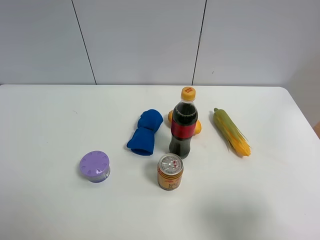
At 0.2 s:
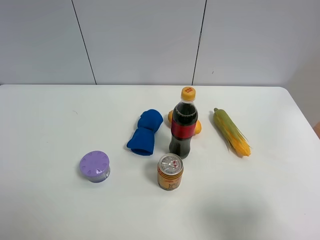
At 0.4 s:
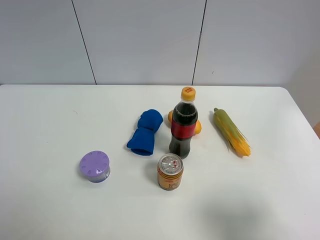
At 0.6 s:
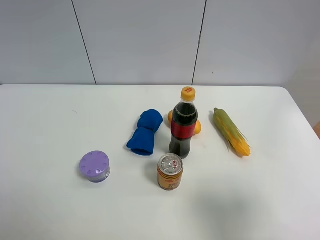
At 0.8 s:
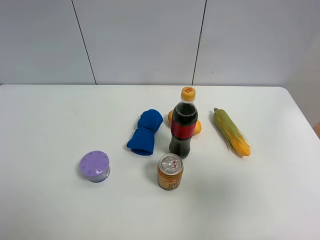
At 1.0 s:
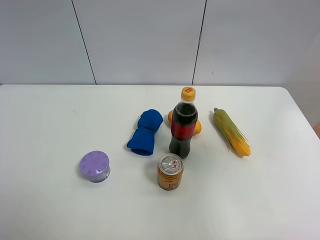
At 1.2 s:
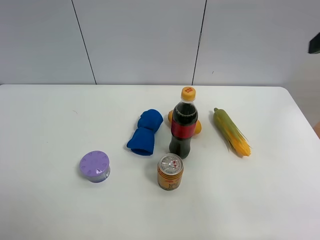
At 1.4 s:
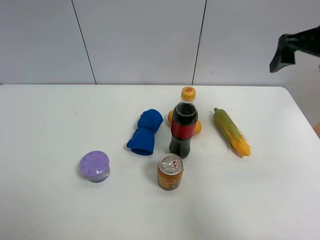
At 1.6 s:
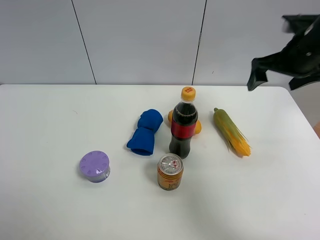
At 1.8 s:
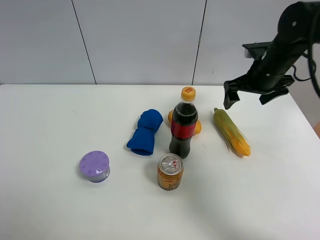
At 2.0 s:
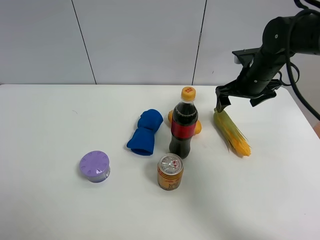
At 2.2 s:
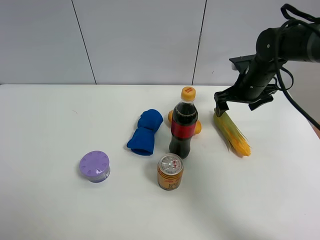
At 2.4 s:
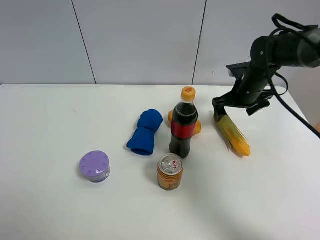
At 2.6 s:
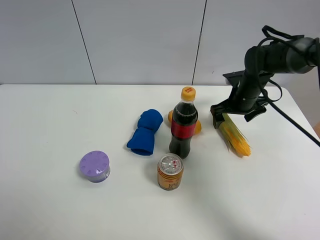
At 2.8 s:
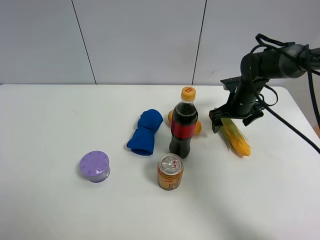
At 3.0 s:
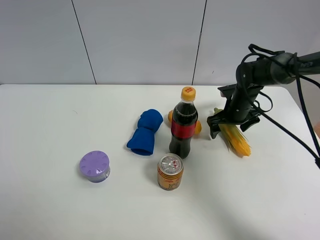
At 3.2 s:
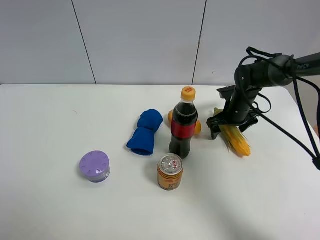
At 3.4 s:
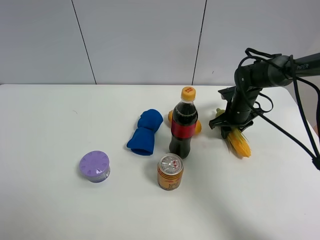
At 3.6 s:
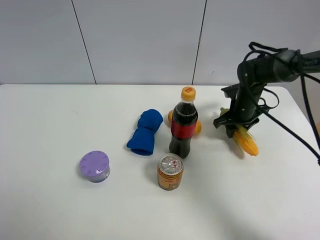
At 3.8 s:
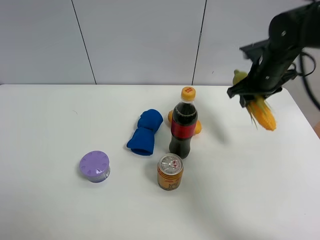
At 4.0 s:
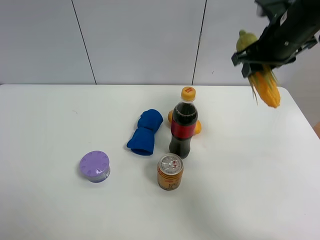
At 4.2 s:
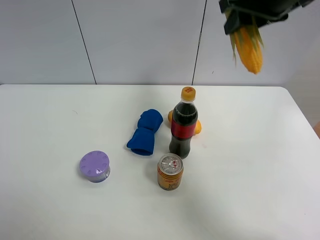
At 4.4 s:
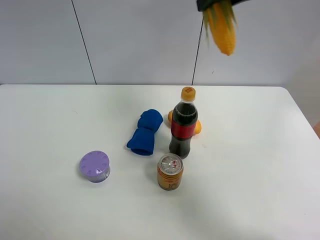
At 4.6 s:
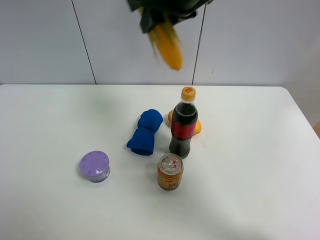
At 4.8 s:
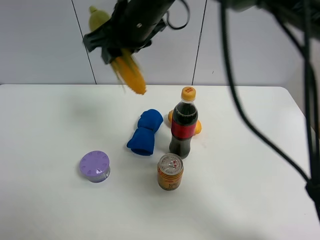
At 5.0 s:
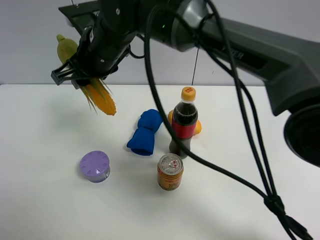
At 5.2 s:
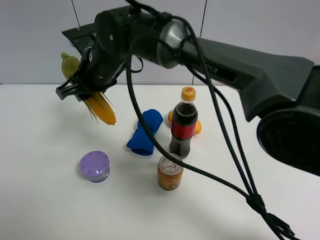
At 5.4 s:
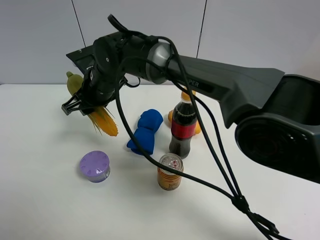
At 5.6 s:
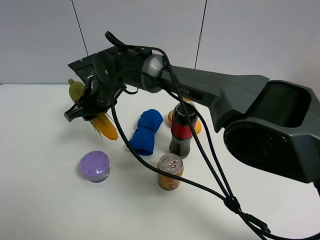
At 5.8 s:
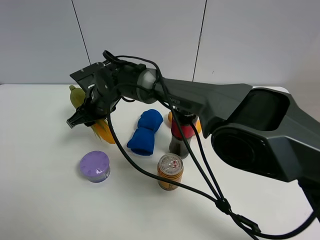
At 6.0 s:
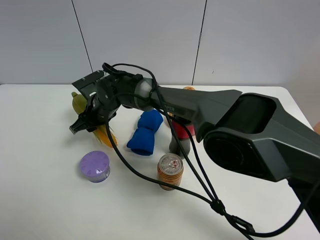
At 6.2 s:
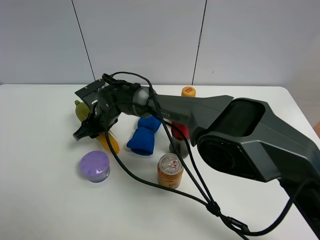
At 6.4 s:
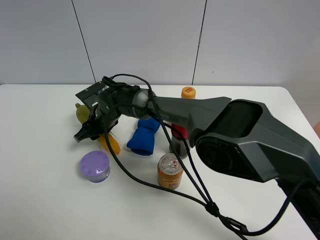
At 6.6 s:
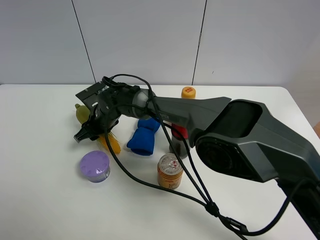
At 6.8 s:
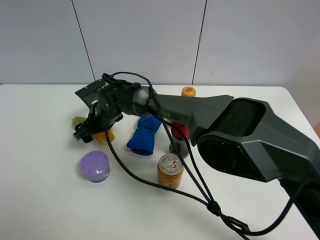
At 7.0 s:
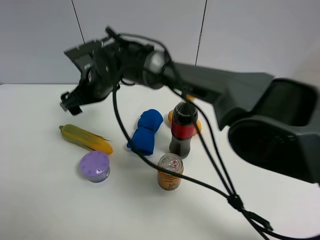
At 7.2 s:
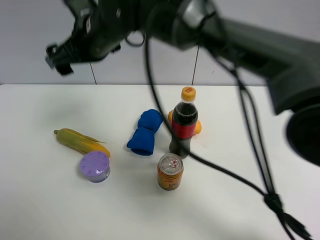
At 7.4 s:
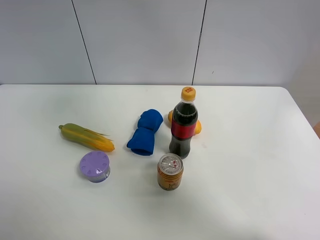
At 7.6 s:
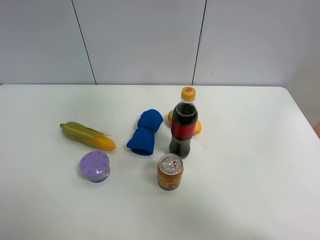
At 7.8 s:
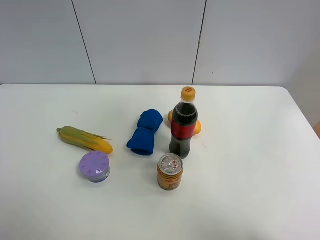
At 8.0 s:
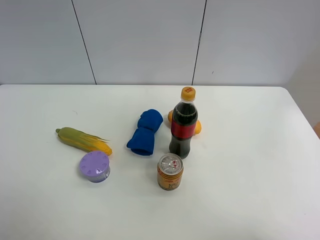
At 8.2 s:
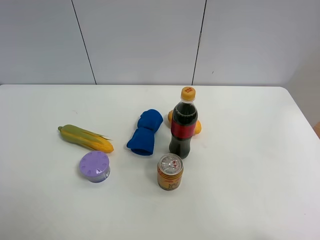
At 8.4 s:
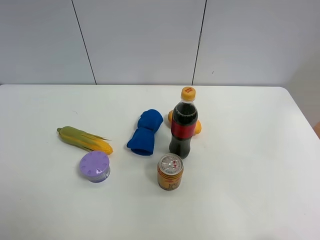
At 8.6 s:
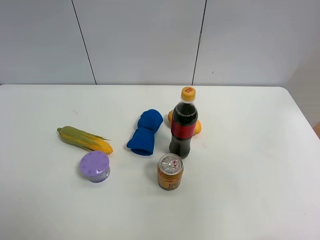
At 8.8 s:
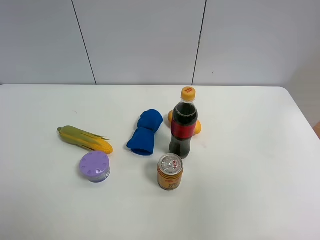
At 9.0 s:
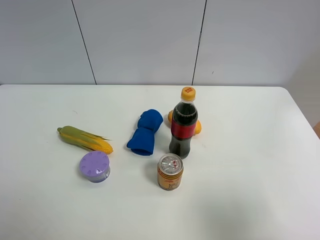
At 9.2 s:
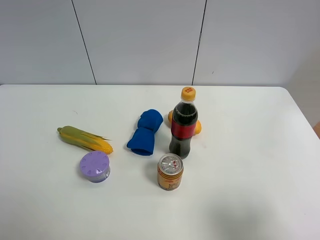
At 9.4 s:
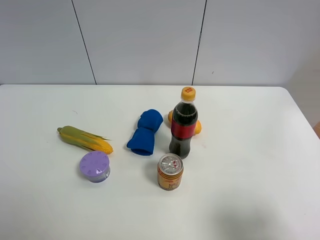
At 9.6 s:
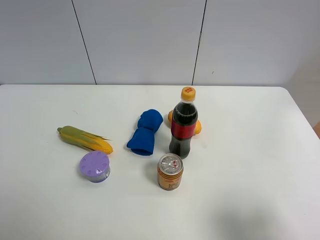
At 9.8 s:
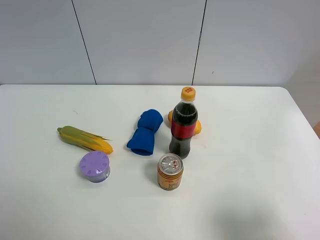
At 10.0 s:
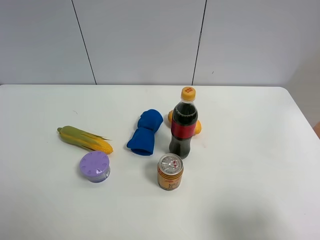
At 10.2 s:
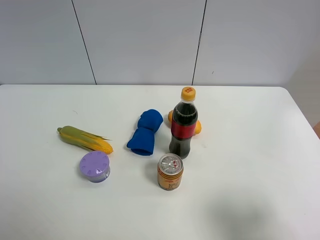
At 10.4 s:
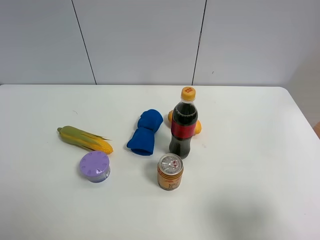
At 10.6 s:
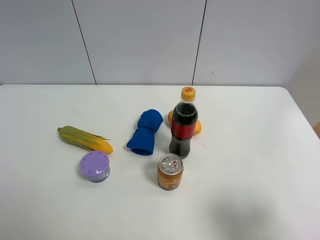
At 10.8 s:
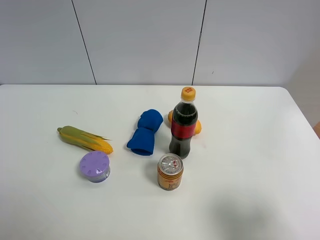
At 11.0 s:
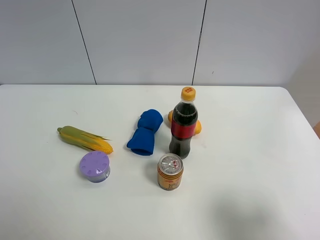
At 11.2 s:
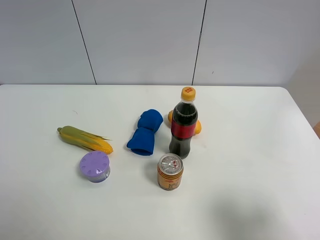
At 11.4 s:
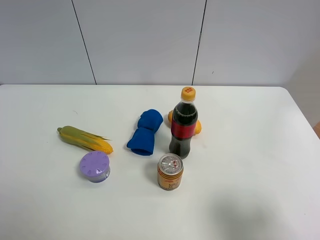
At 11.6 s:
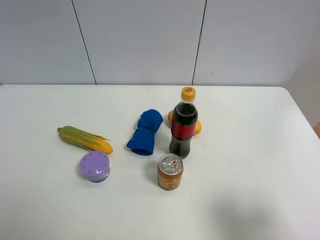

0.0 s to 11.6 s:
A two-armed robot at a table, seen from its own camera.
Task of the whole recording: the gripper move the object.
Step, 0.0 to 3.2 s: Grasp the corn with the right gripper.
Step, 3.4 to 6.8 s: Place the corn on the table with the right gripper.
0.0 to 1.4 s: The right gripper shifts approximately 30 cm forward.
1.4 to 2.8 s: The right gripper travels downward and forward by some 25 cm.
2.8 to 4.4 s: The right gripper heads upward, covering approximately 30 cm, and closes its fingers.
4.4 to 5.8 s: The right gripper shifts approximately 40 cm downward and to the left.
5.8 to 7.2 s: The right gripper moves upward, some 20 cm, and opens.
7.2 to 8.8 s: The right gripper heads to the right and backward, covering some 50 cm.
8.8 to 10.2 s: The right gripper moves downward, some 15 cm.

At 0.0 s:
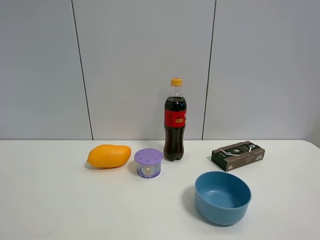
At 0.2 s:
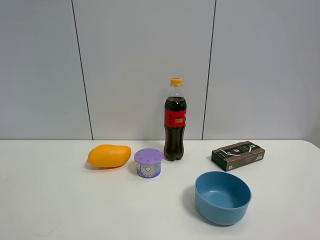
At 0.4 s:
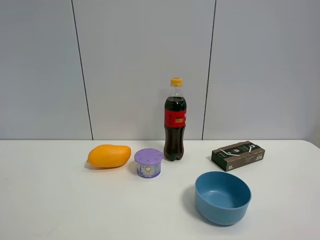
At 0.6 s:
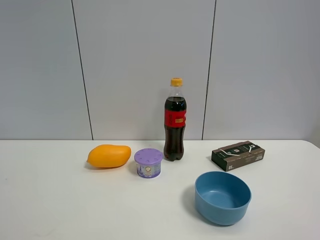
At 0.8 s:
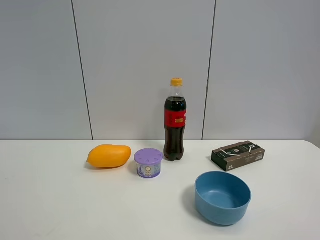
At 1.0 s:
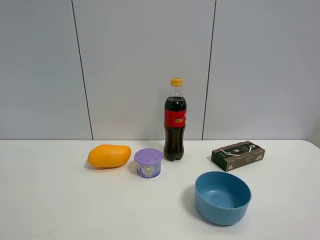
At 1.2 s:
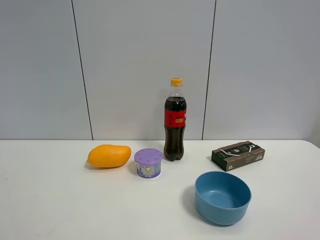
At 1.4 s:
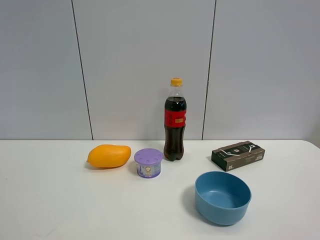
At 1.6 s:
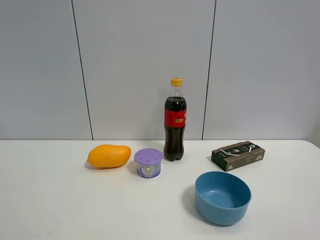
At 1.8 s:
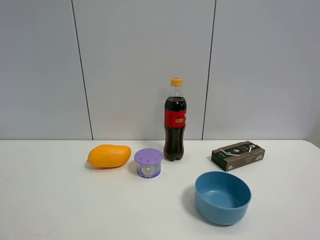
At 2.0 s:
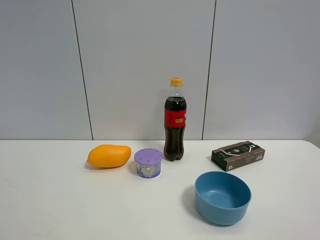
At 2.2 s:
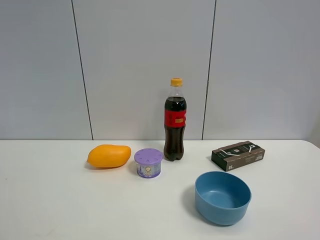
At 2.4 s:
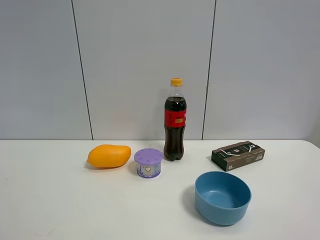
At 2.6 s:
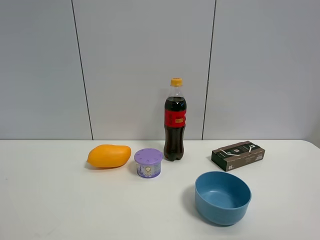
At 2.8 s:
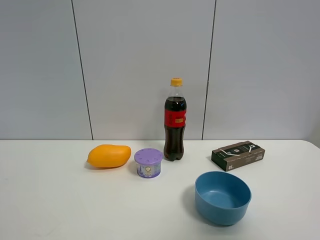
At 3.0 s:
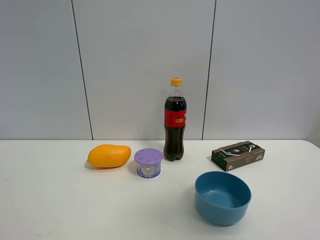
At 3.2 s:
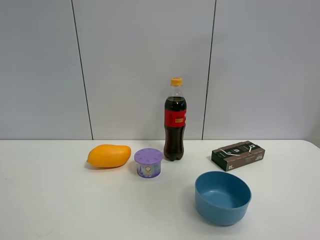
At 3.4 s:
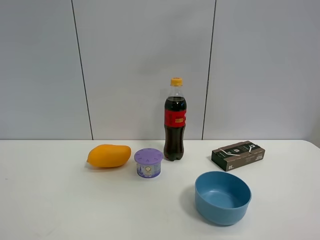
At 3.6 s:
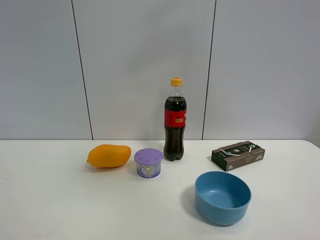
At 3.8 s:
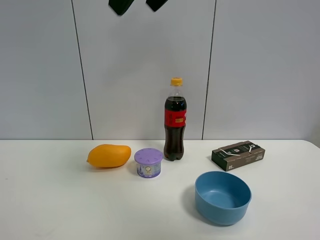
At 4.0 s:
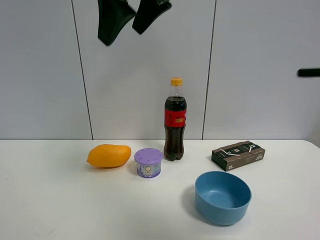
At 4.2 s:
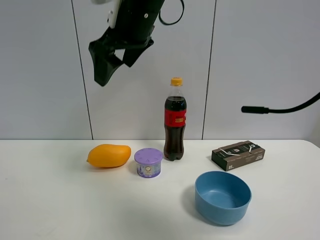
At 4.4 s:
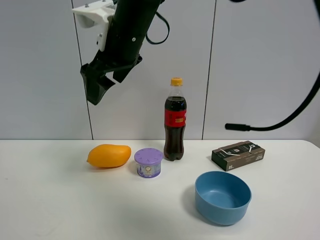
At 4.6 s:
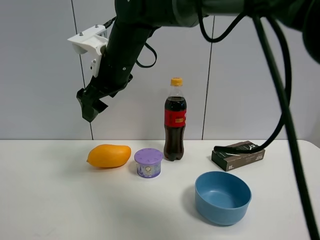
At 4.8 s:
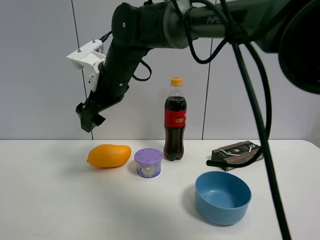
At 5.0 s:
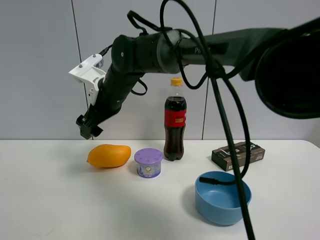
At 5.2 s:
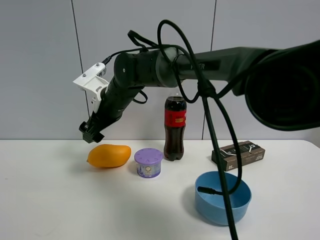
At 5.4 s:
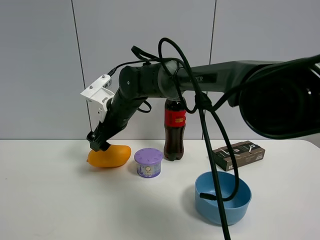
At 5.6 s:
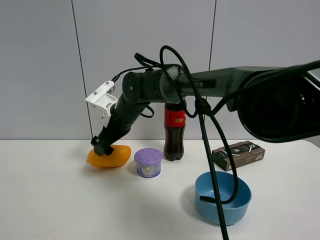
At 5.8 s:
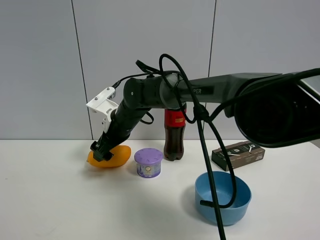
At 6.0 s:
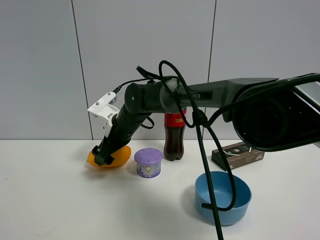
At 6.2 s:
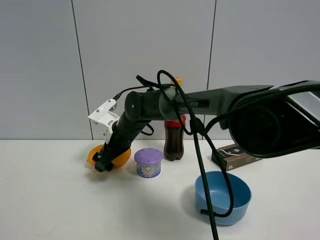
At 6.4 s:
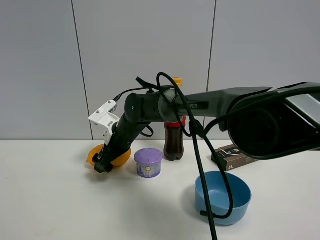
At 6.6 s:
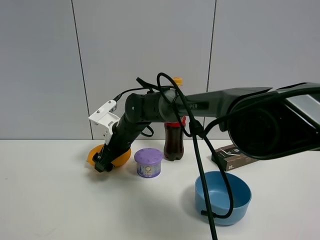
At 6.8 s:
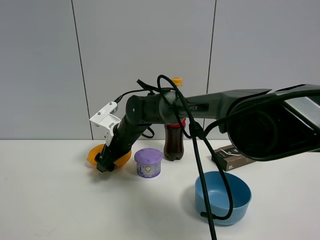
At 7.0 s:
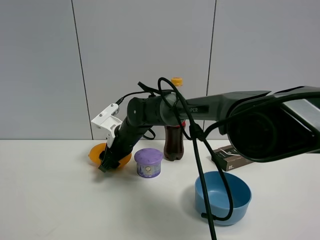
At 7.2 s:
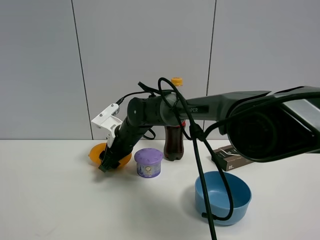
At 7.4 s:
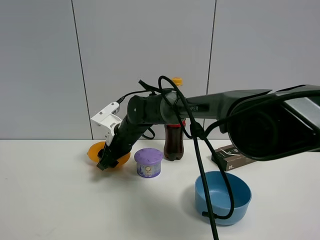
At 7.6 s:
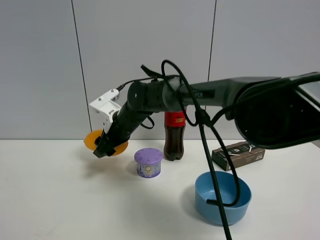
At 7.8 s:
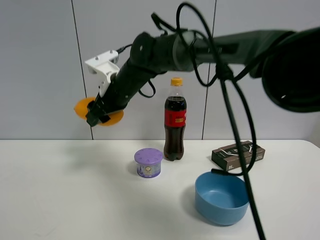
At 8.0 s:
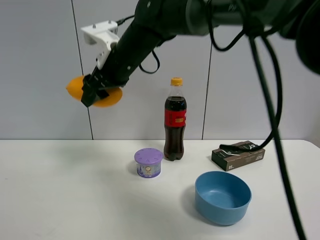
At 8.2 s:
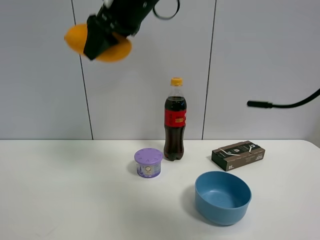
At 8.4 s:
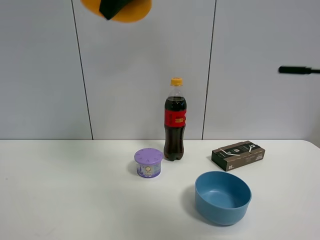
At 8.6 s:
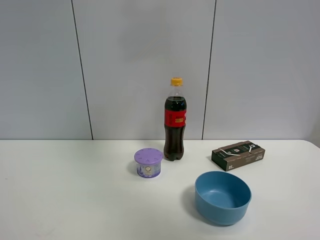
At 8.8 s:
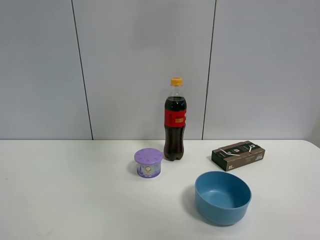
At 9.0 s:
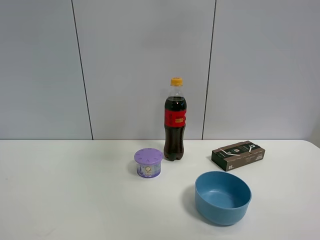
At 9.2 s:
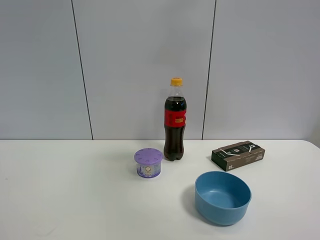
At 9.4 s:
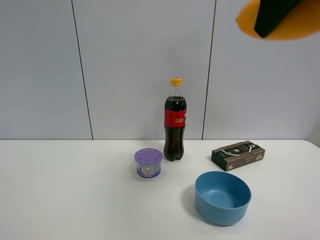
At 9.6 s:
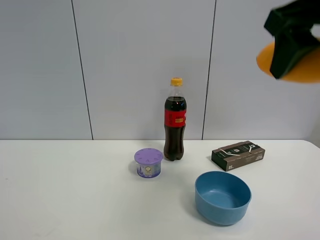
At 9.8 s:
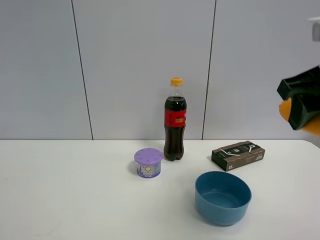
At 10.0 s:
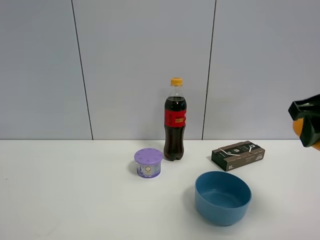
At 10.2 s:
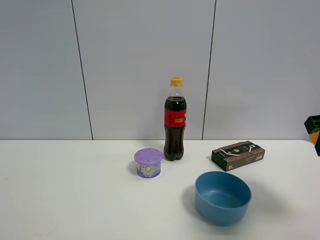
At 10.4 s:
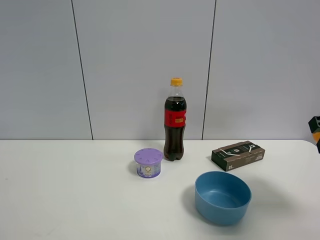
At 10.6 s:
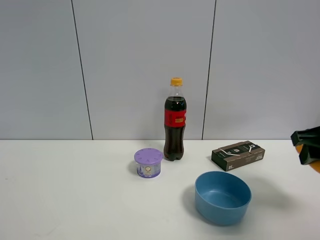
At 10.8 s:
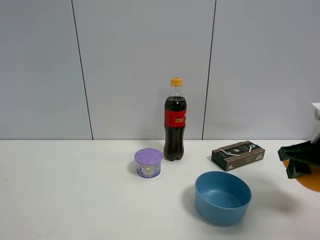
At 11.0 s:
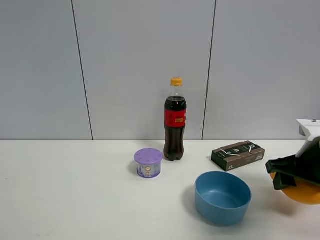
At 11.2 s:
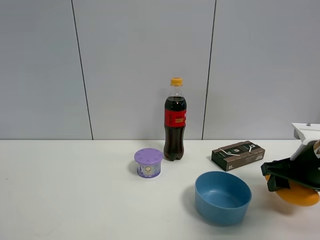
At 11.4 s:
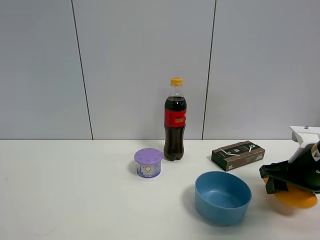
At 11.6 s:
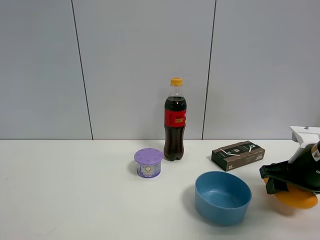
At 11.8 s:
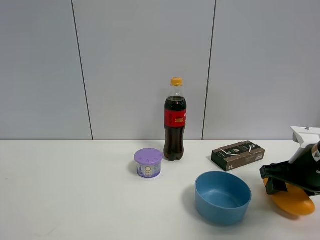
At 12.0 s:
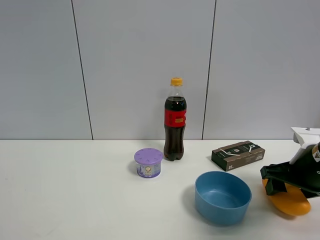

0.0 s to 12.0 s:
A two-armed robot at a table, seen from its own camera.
Task of the whole recording: the gripper move the object.
Step, 0.0 to 7.0 s: Grasp the mango with the right gripper.
1.6 to 3.0 s: The right gripper moves upward and forward, about 20 cm.
3.0 to 4.4 s: The right gripper shifts about 40 cm to the left and forward.
4.4 to 6.0 s: The right gripper goes about 20 cm downward and forward.
6.0 to 7.6 s: The right gripper closes its fingers.
7.6 to 9.0 s: The right gripper goes roughly 50 cm upward, to the right and backward.
9.0 to 10.4 s: The right gripper travels downward and to the right by about 30 cm.
10.4 to 12.0 s: The right gripper heads downward and forward, covering approximately 15 cm.
